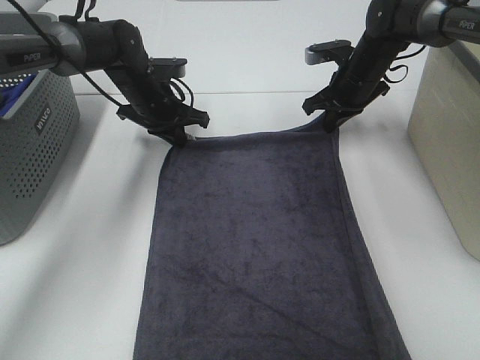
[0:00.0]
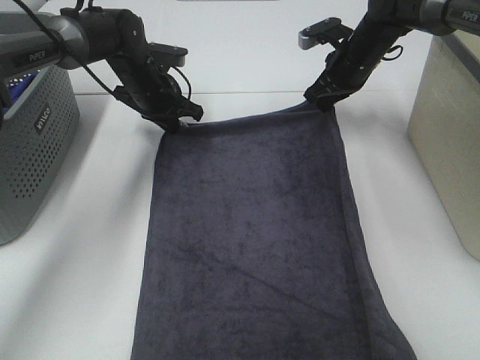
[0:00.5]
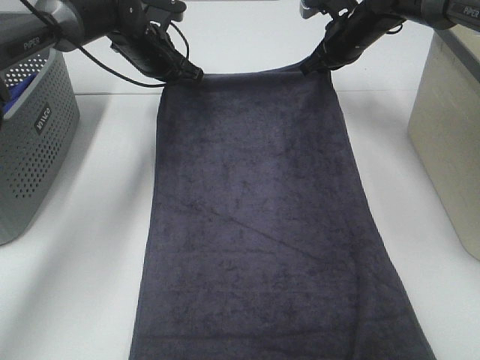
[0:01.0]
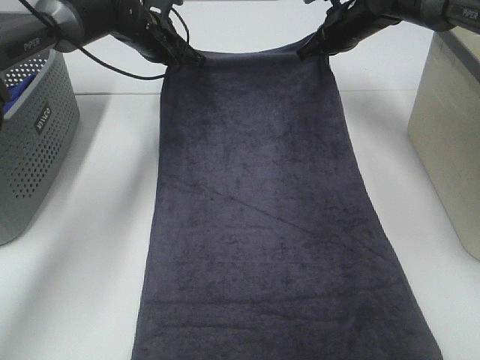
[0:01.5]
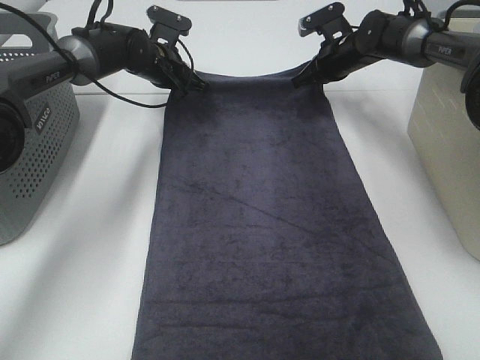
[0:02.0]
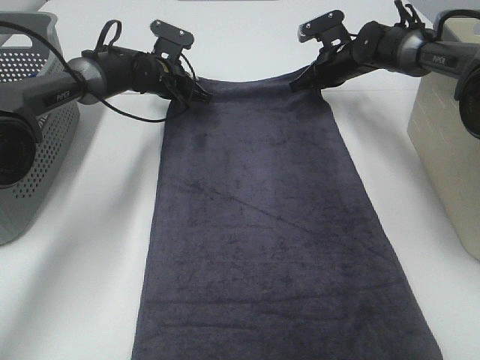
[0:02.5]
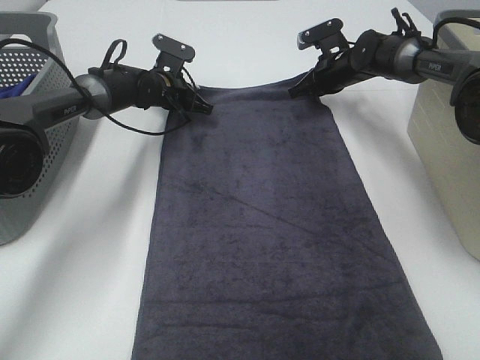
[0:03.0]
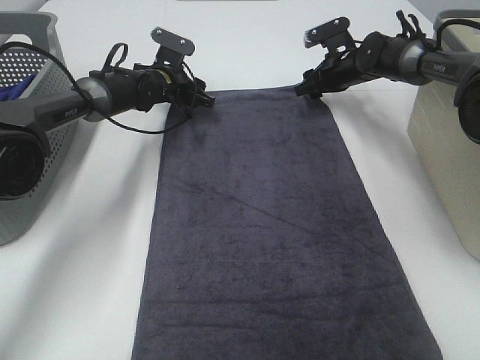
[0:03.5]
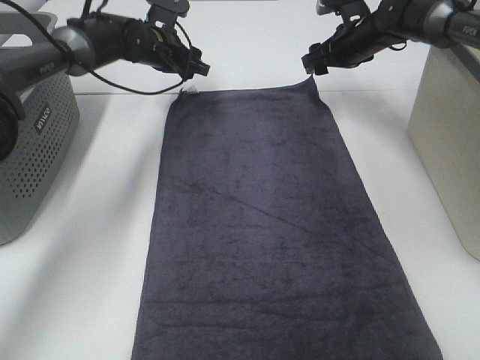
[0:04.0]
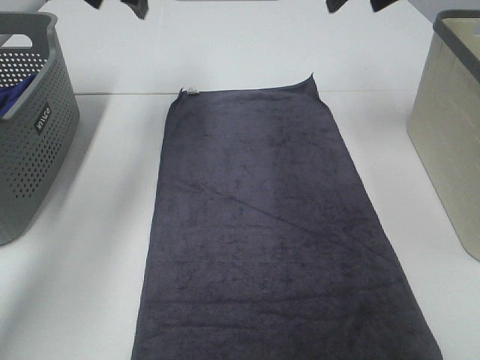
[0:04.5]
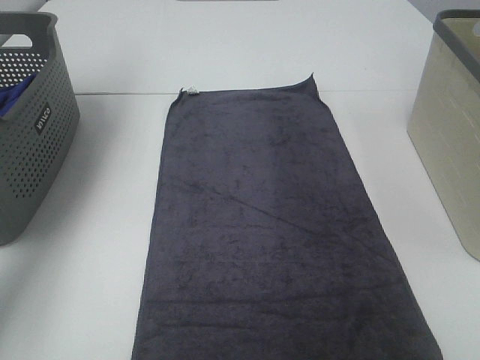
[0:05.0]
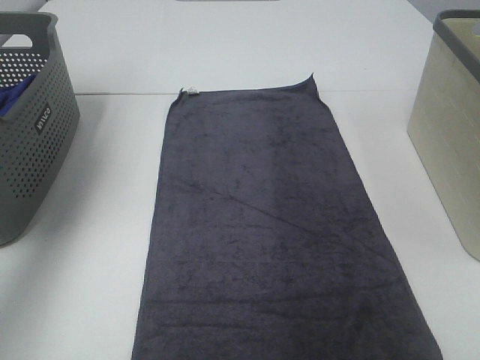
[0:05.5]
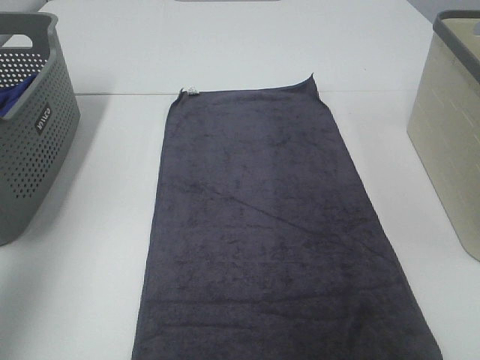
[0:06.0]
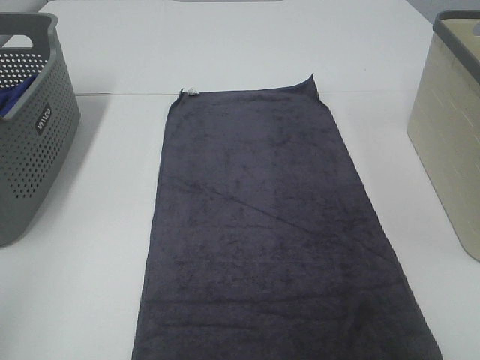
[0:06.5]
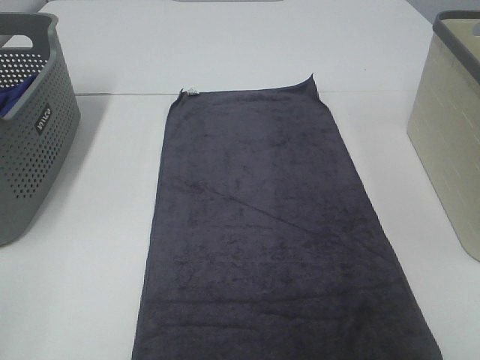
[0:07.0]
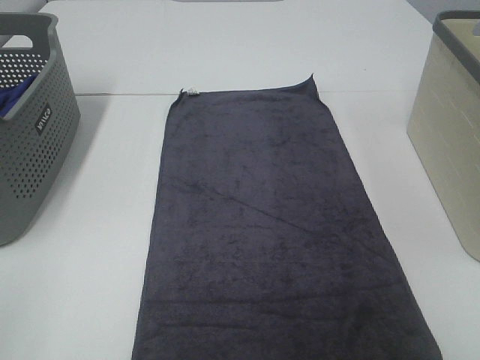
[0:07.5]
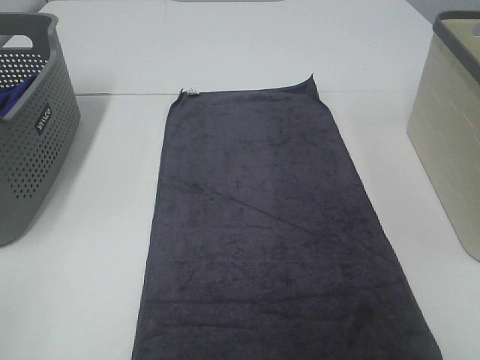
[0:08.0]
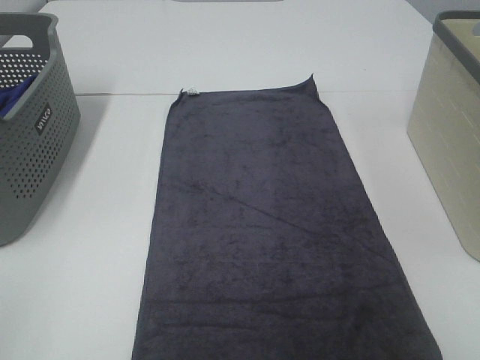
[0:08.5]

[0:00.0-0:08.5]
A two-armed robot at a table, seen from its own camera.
Task of the whole recording: Remove the towel and place it.
0:00.0 to 0:02.0: Both grippers travel together forward, some 5 cm.
0:02.0 to 0:04.0: The right gripper opens its fingers. The left gripper opens.
0:04.0 to 0:06.5: Both grippers travel together backward, about 50 cm.

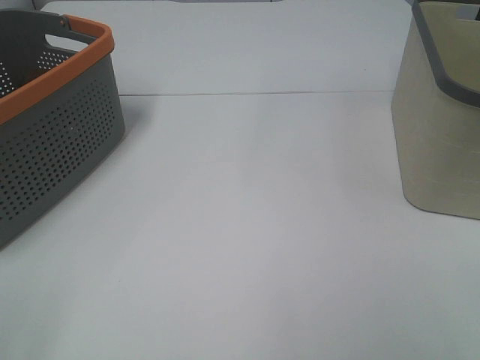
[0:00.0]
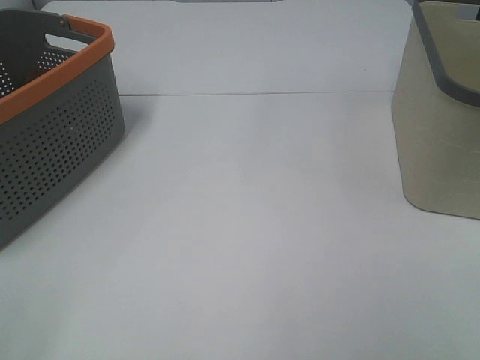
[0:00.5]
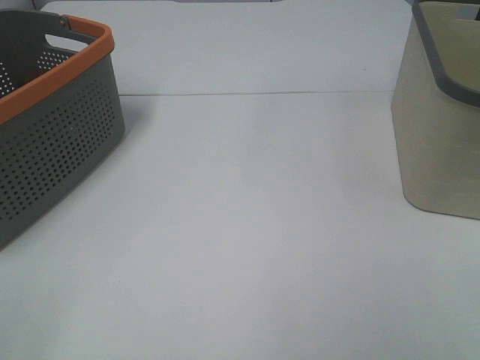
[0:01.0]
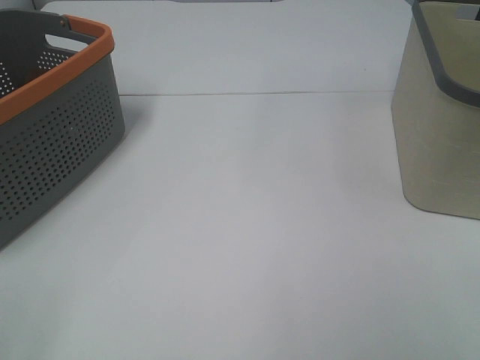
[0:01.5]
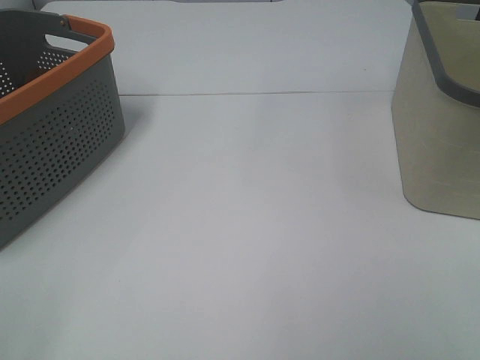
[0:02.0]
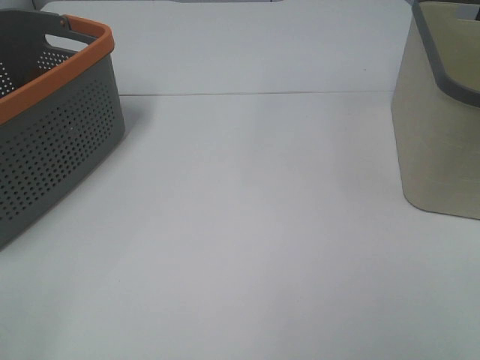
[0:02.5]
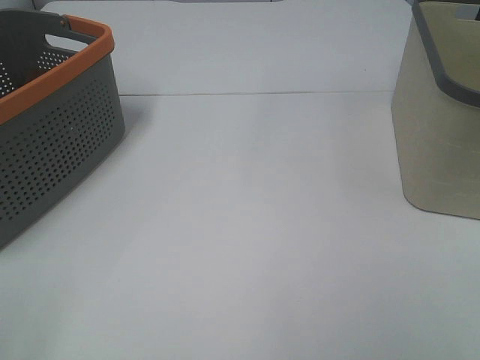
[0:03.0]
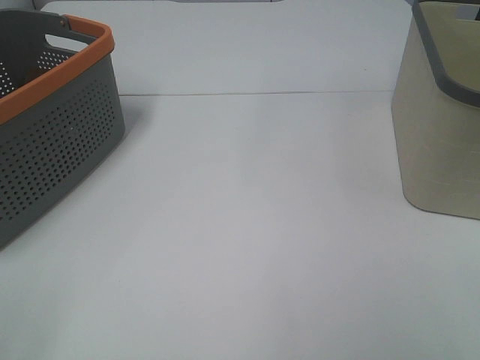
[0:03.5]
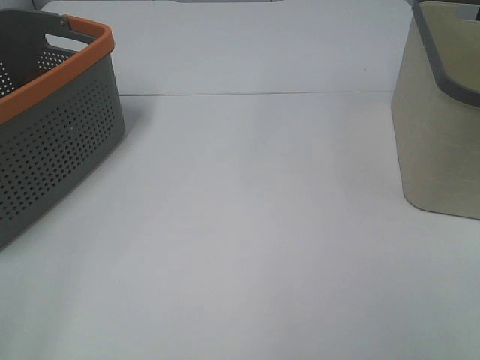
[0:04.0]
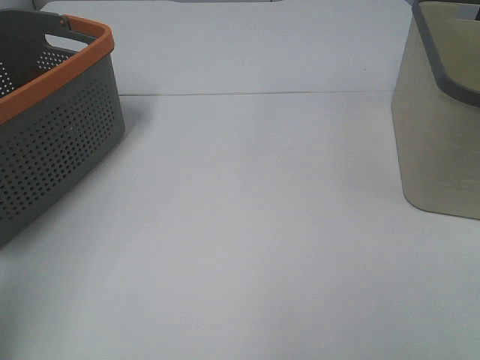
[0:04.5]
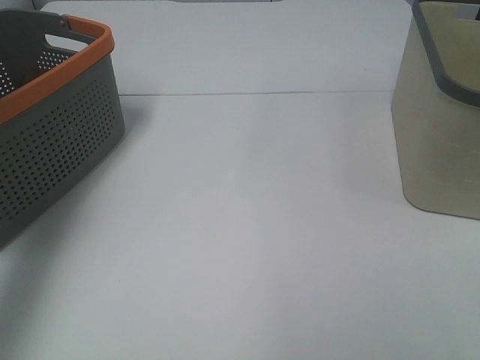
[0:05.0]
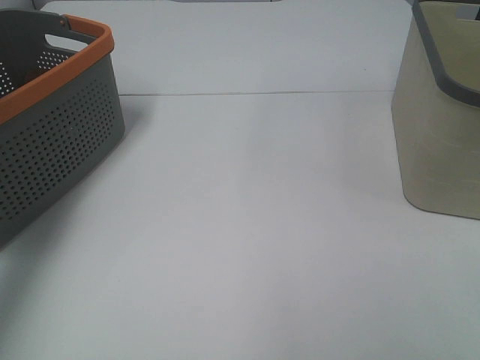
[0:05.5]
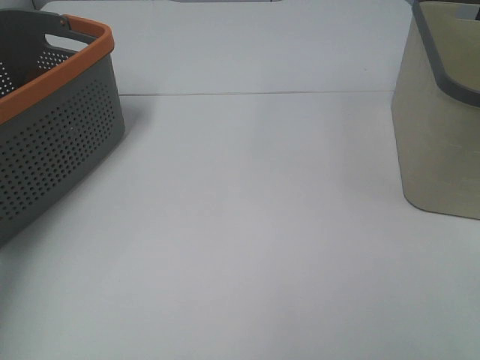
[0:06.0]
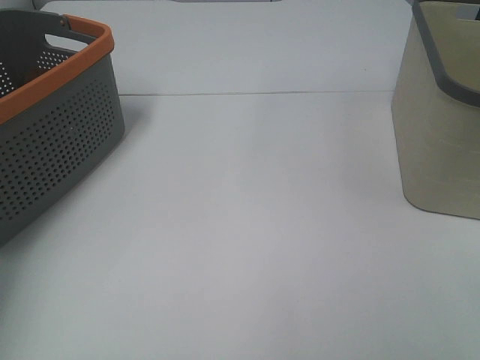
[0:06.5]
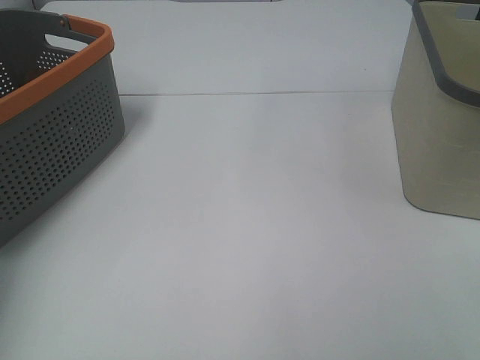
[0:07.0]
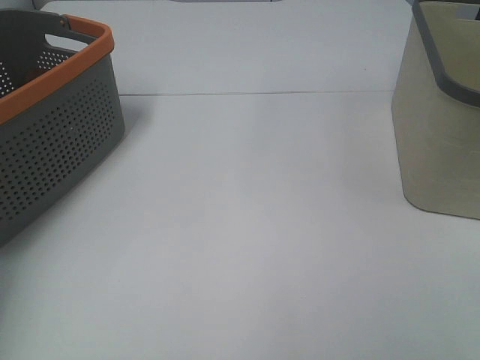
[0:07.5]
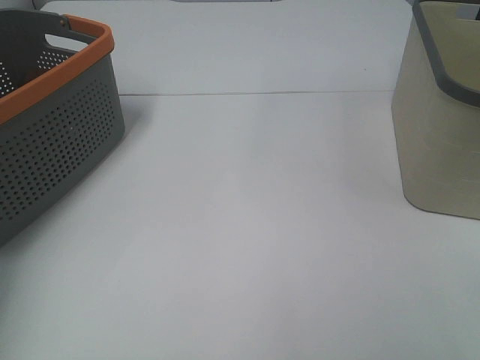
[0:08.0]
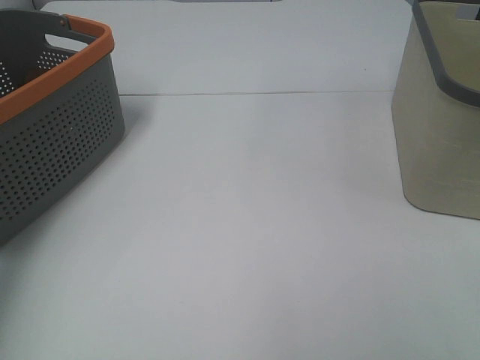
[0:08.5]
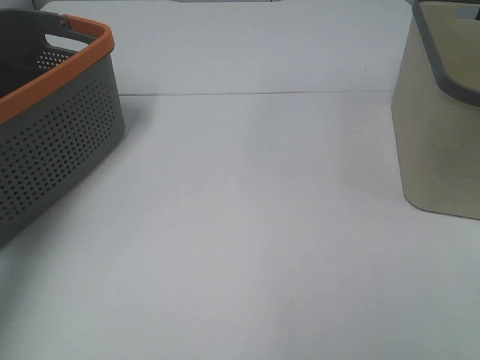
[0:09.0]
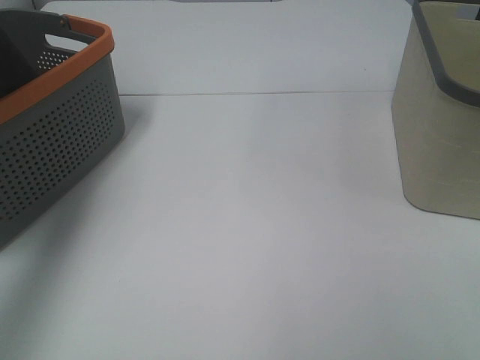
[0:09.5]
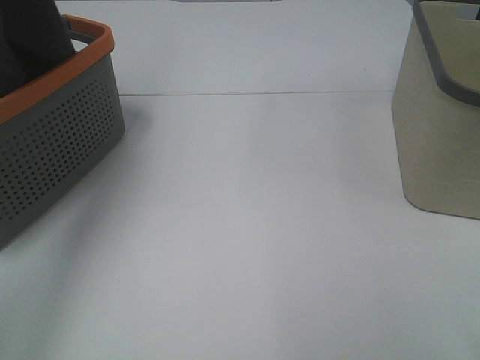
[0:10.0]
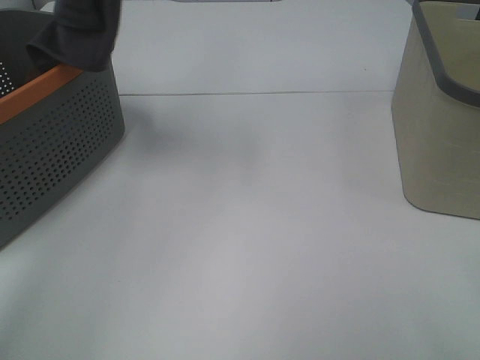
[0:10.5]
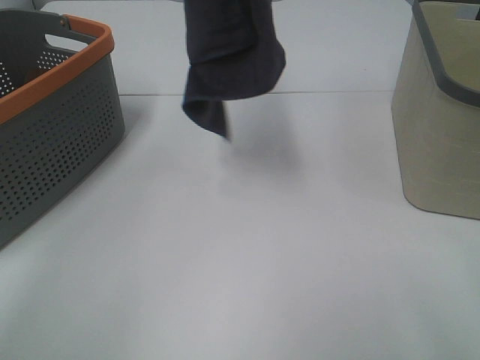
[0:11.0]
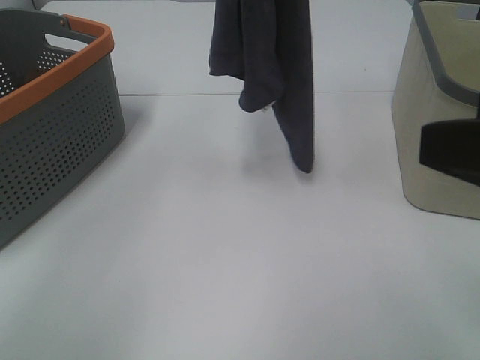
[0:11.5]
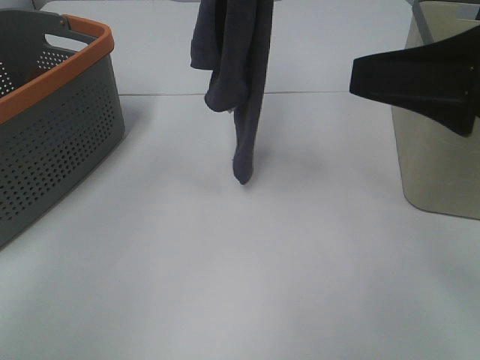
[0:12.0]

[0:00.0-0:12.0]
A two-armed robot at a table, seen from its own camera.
Task of the whole recording: Remove the towel and place it.
0:00.0 to 0:02.0: The two grippers keep their place.
0:04.0 to 0:06.0: The left gripper is displaced forward by roughly 40 cm.
0:08.0 to 0:10.0: The left gripper is displaced upward and to the right by approximately 35 cm.
0:10.0 to 0:12.0: The left gripper moves to the right, roughly 20 cm, while the right gripper travels forward by some 15 cm.

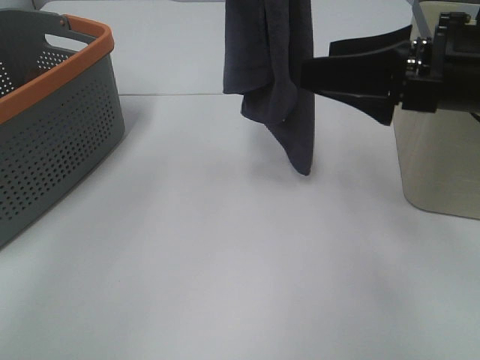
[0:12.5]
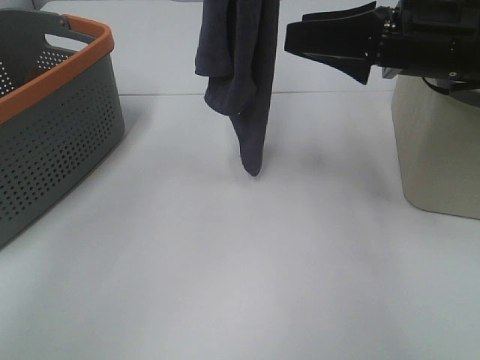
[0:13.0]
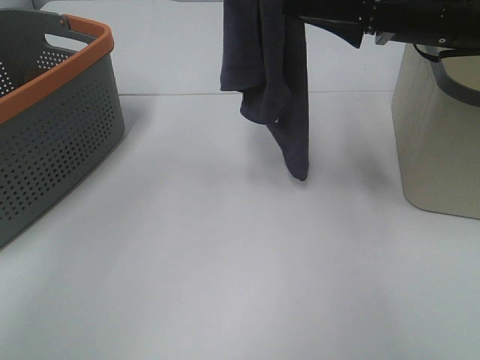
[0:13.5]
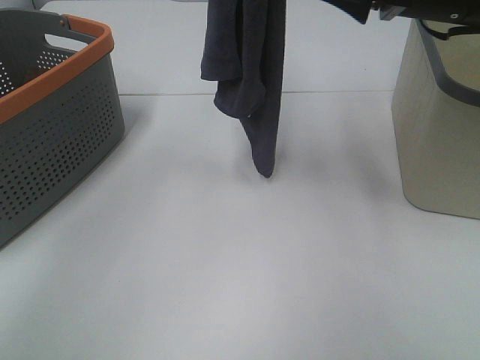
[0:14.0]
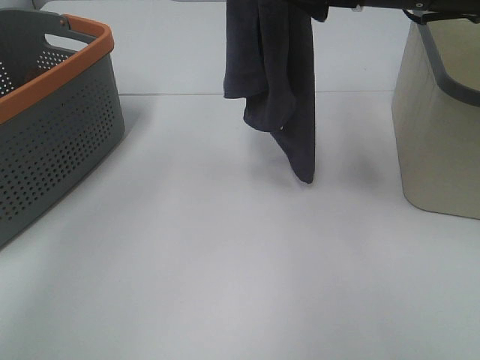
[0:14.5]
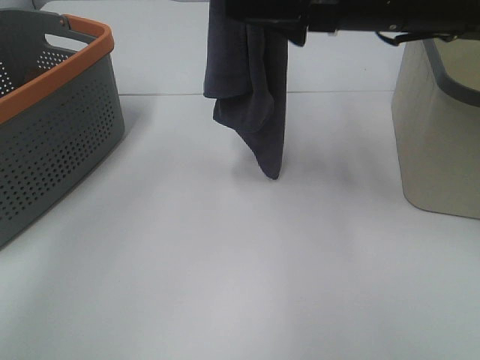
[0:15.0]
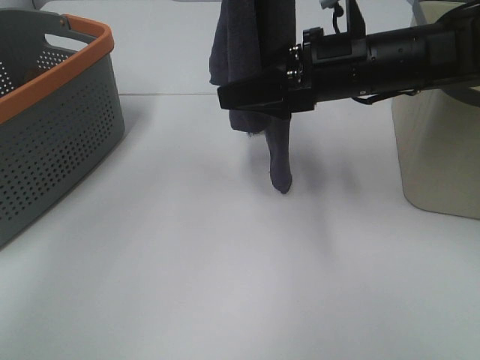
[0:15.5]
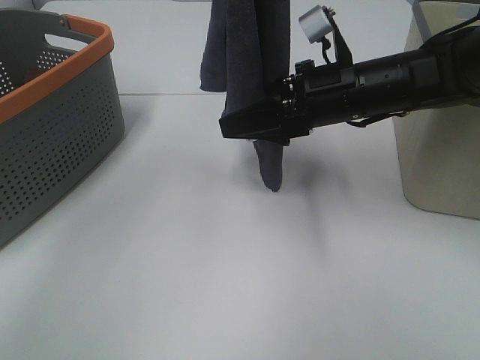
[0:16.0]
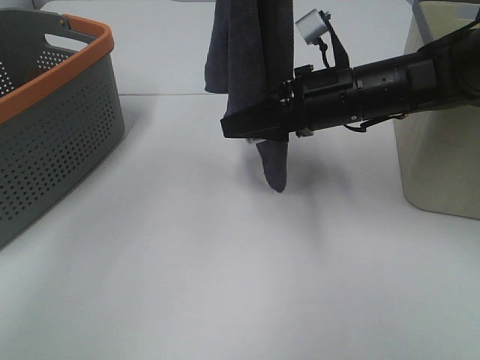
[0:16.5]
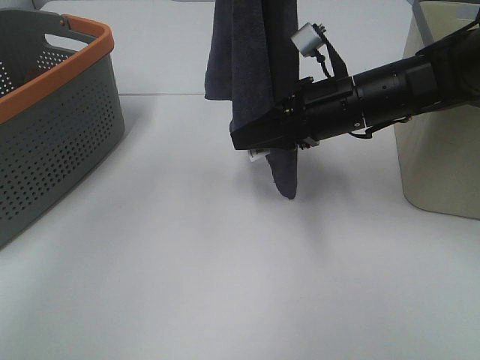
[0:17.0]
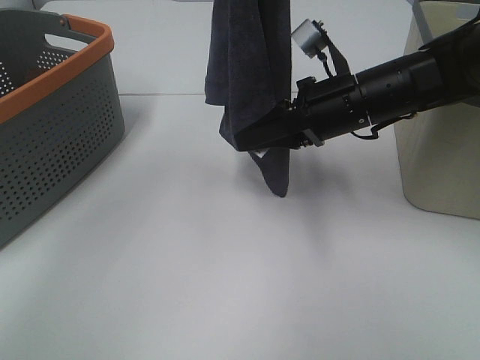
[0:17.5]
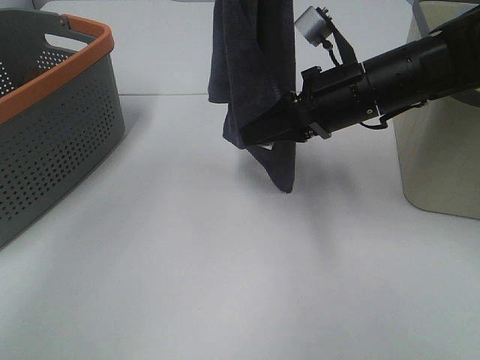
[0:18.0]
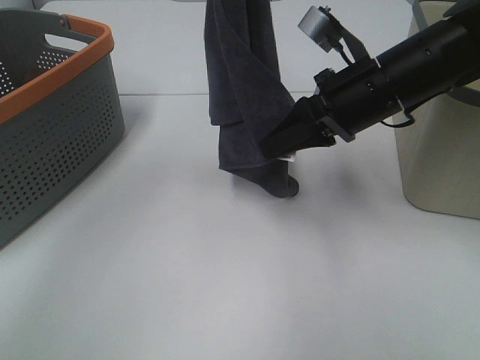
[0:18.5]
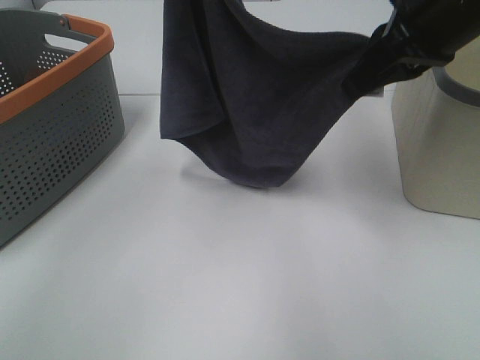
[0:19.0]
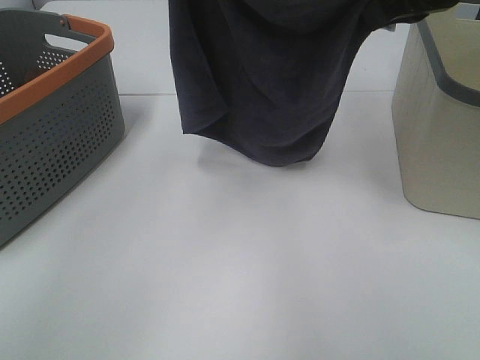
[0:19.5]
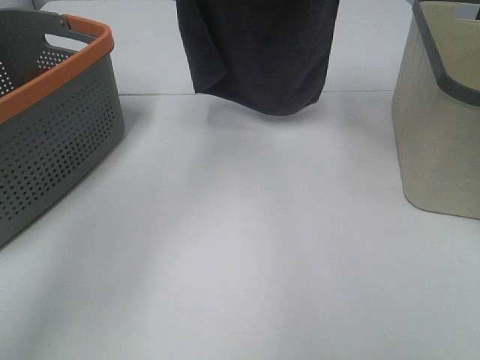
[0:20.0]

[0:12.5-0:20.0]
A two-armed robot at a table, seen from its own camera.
Task of the whole recording: Remove the towel and place it.
Step, 0:12.5 to 0:16.0: Right hand: grab a corner of the grey towel and straighten it.
Step, 0:16.5 to 0:19.0: Left hand: spread the grey towel flat on the table.
Step, 0:16.5 to 0:19.0: Right hand: spread the grey towel flat on the table.
0:12.5 to 0:14.5: The right gripper moves forward, approximately 10 cm.
0:14.5 to 0:16.5: The right gripper shifts some 10 cm downward.
0:16.5 to 0:18.0: The right gripper closes.
0:18.0 to 0:20.0: The left gripper shifts roughly 20 cm forward and downward. Meanwhile the right gripper heads upward and forward, covering roughly 15 cm.
